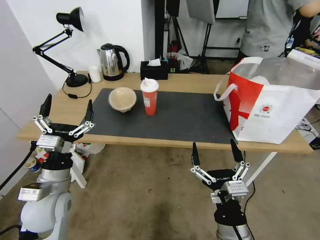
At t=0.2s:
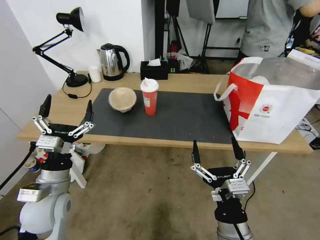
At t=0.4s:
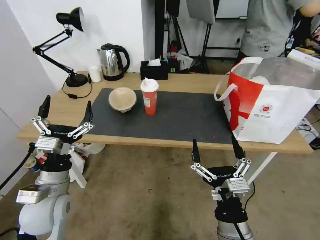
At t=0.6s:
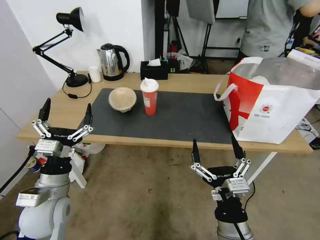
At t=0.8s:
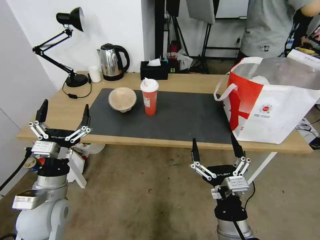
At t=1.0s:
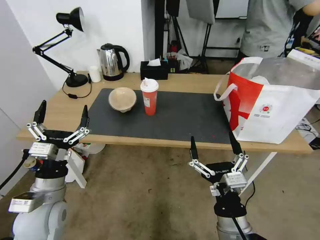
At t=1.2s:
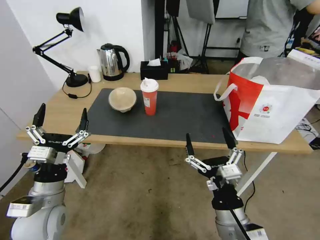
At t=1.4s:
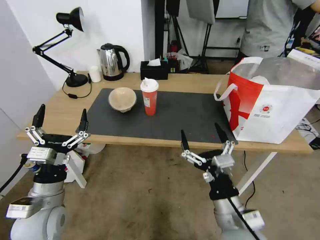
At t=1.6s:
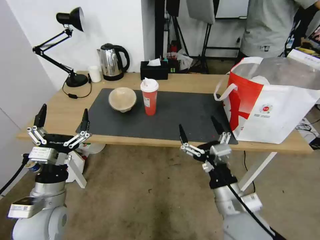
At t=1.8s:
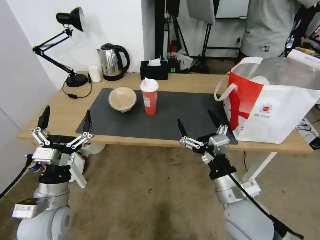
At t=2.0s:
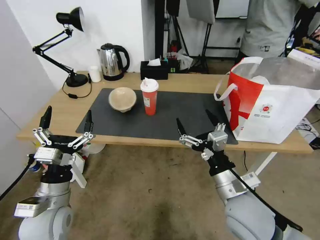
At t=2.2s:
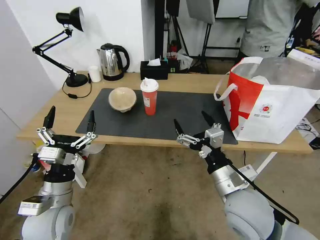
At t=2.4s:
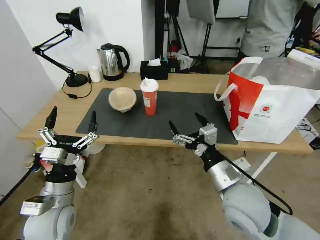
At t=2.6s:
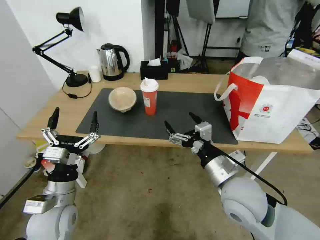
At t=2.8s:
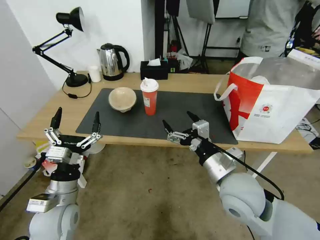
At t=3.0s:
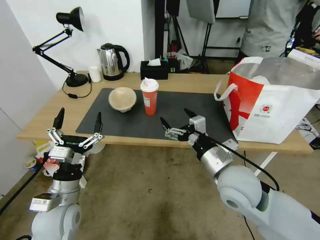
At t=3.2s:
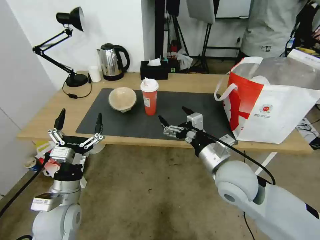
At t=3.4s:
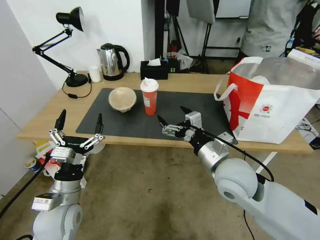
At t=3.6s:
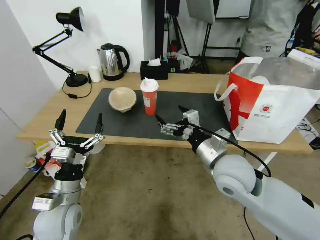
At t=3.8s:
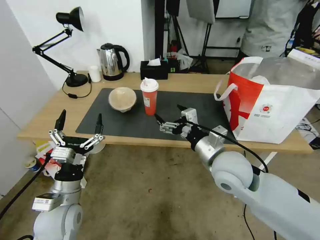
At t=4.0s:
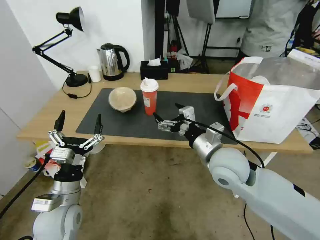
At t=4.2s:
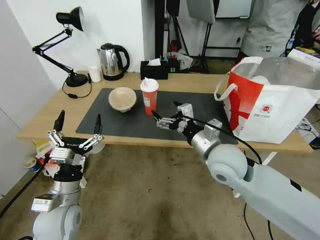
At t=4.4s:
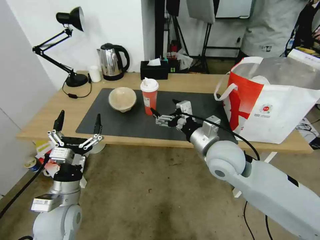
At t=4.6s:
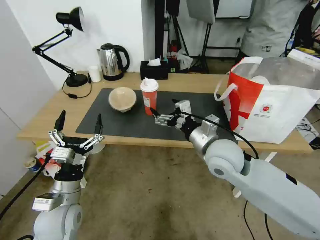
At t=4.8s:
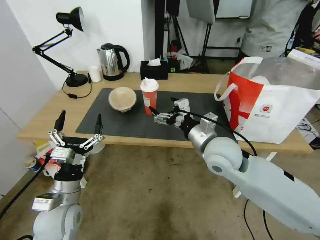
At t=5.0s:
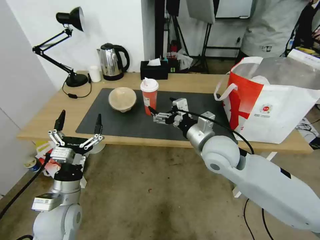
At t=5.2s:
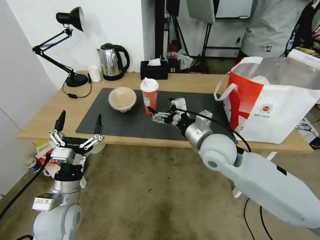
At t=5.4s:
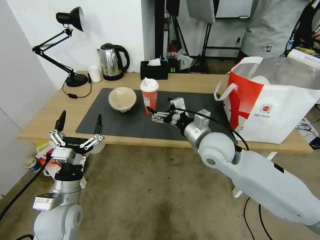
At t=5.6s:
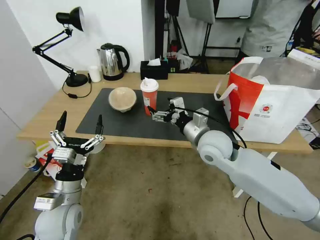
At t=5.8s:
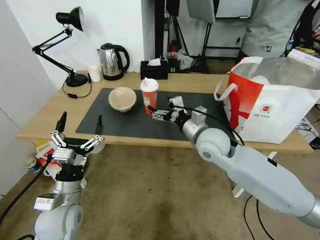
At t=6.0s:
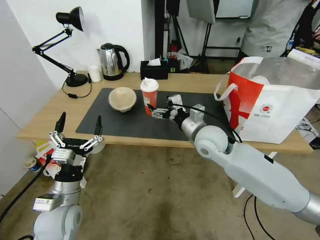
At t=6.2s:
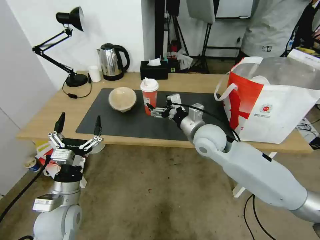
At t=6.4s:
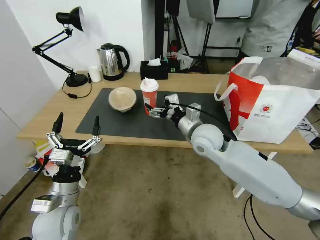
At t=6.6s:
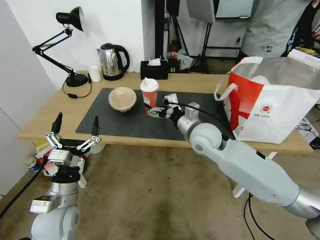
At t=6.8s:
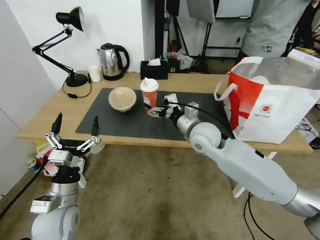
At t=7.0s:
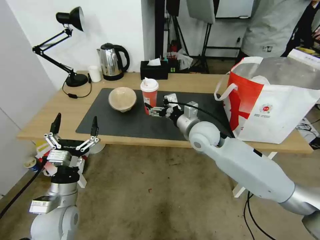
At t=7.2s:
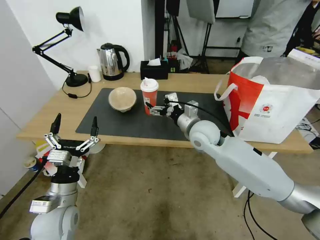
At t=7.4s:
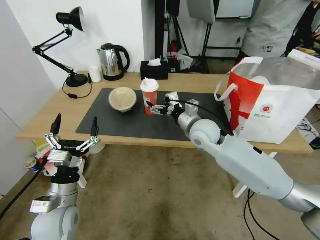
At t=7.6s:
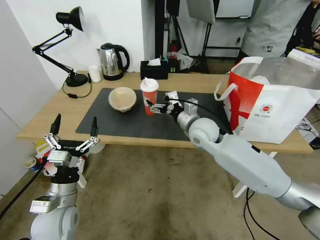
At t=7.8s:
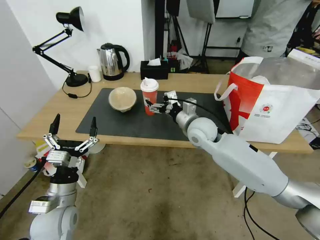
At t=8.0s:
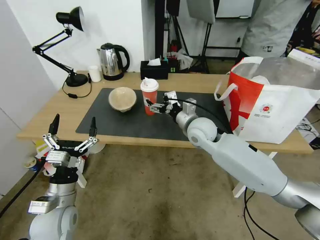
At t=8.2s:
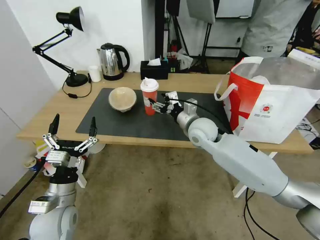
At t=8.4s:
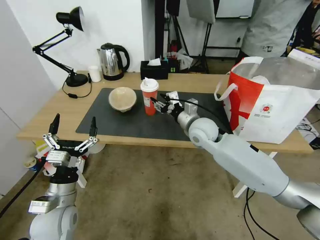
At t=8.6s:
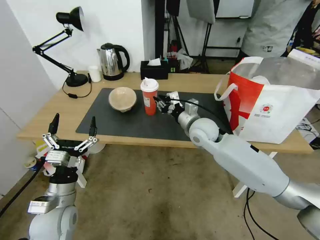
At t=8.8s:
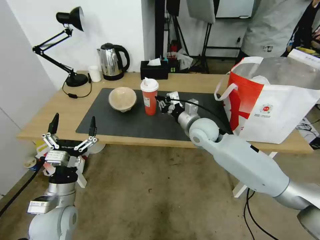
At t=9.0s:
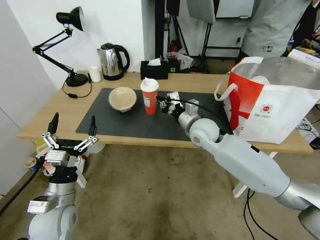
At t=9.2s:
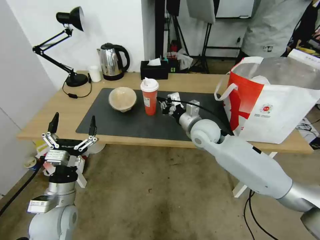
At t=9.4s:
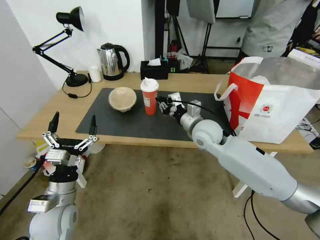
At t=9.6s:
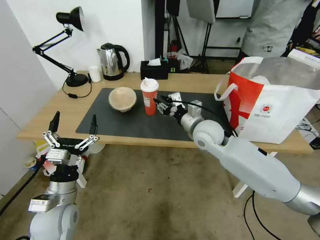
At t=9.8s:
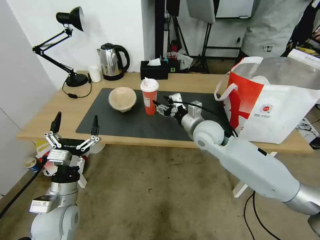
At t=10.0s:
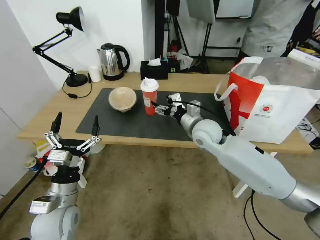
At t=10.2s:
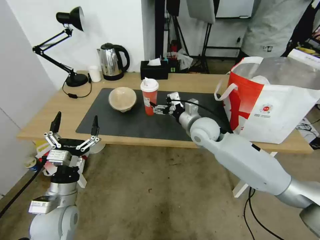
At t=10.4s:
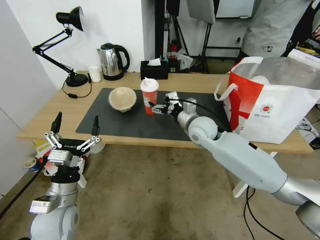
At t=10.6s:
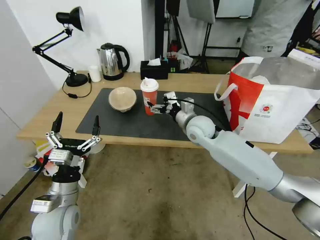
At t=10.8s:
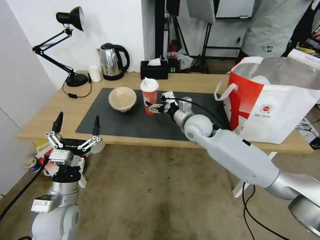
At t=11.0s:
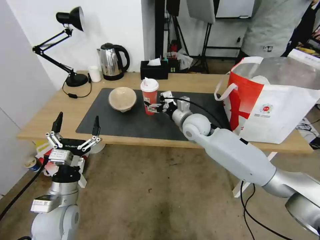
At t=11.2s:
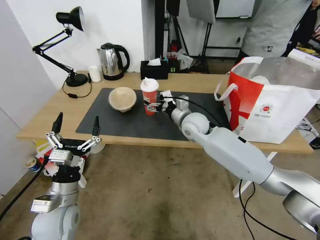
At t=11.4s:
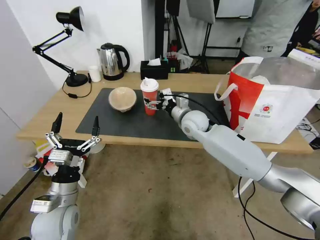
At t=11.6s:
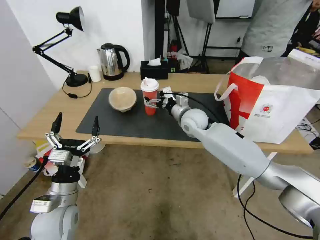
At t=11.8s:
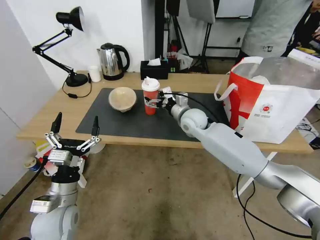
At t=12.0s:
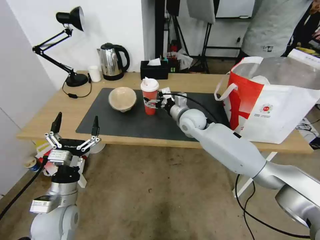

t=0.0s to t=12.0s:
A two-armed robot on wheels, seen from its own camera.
Task of the whole recording: Pick up the trash from the table and place it into the takeout bag.
t=0.0s to t=1.6s: The right gripper moves forward, approximately 5 cm.
t=1.6s to t=3.0s: The right gripper goes approximately 10 cm forward.
t=3.0s to t=4.4s: The right gripper shifts about 5 cm forward.
t=4.4s to t=6.0s: The right gripper goes approximately 5 cm forward.
t=6.0s to t=7.6s: The grippers stay close to where they were, moving slightly.
t=7.6s to t=9.0s: The right gripper closes.
t=9.0s to t=10.4s: The right gripper opens up.
t=10.4s to t=12.0s: The right gripper shifts by roughly 5 cm.

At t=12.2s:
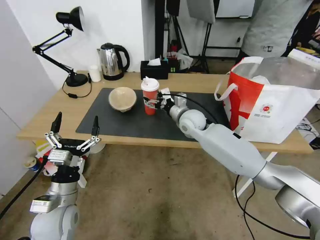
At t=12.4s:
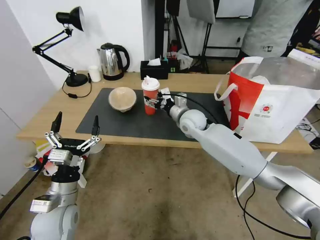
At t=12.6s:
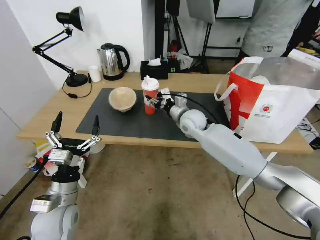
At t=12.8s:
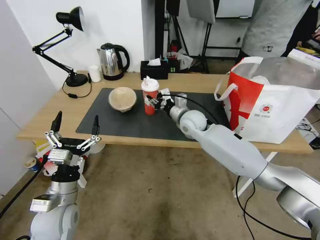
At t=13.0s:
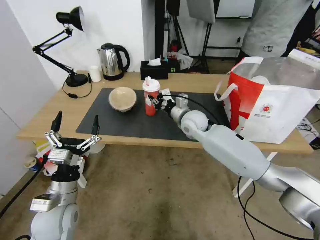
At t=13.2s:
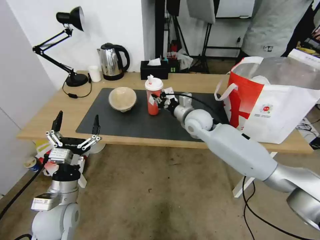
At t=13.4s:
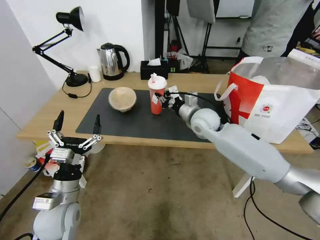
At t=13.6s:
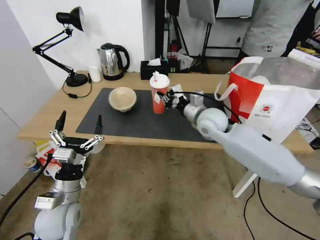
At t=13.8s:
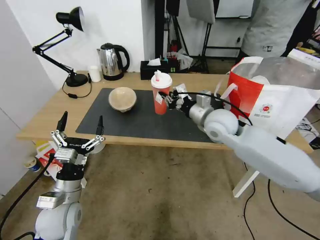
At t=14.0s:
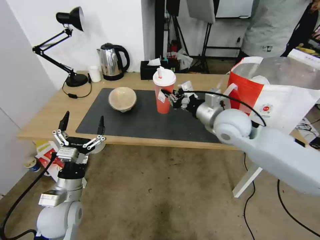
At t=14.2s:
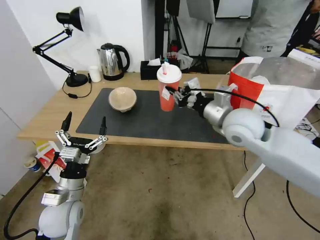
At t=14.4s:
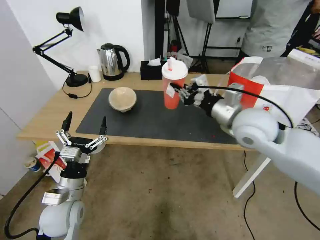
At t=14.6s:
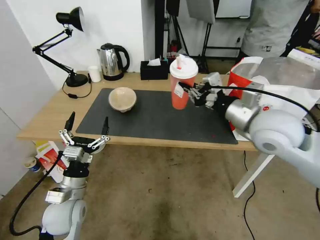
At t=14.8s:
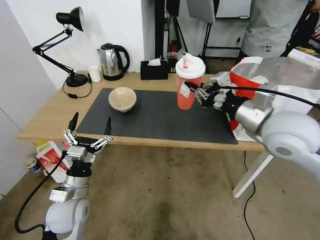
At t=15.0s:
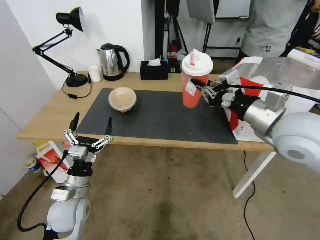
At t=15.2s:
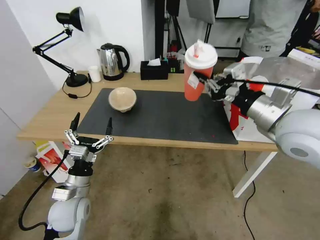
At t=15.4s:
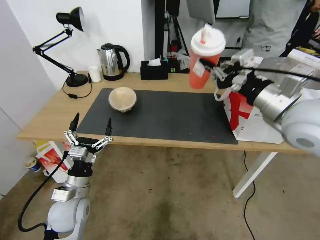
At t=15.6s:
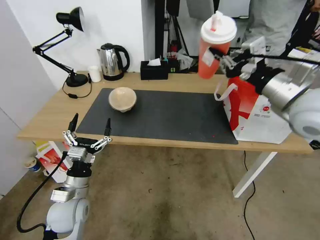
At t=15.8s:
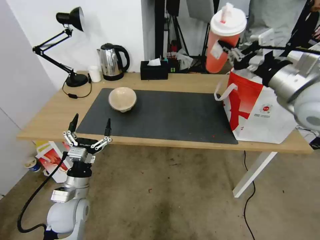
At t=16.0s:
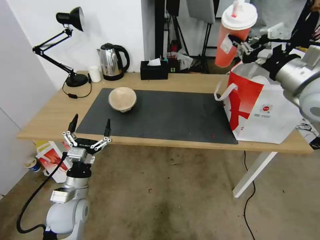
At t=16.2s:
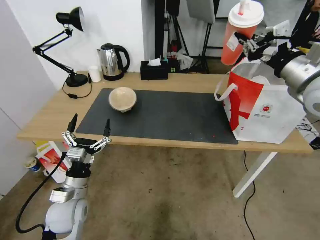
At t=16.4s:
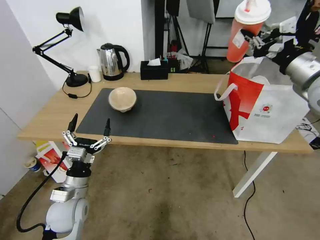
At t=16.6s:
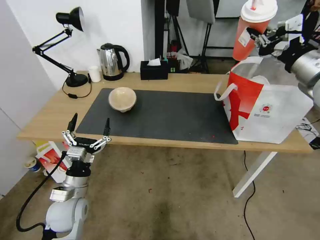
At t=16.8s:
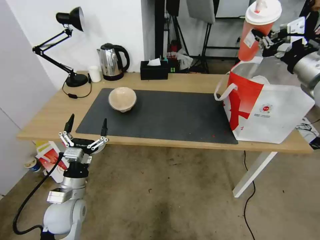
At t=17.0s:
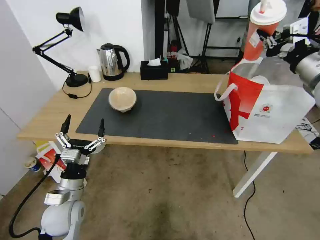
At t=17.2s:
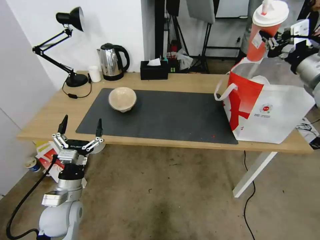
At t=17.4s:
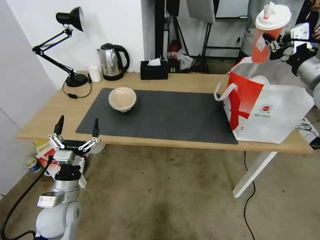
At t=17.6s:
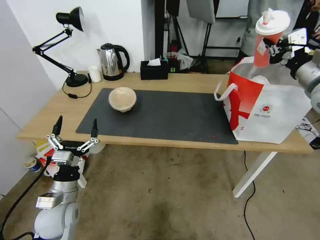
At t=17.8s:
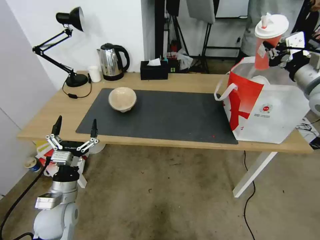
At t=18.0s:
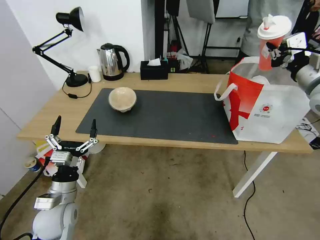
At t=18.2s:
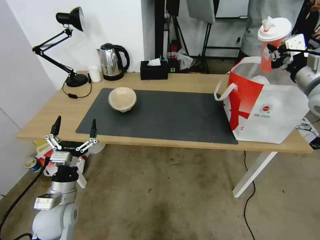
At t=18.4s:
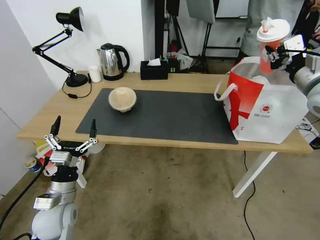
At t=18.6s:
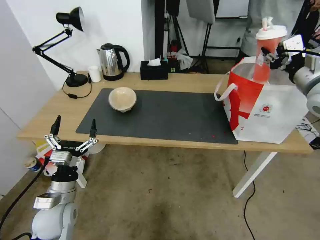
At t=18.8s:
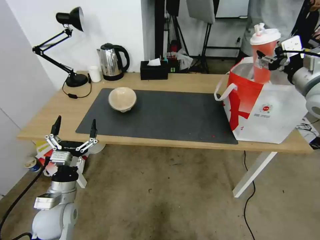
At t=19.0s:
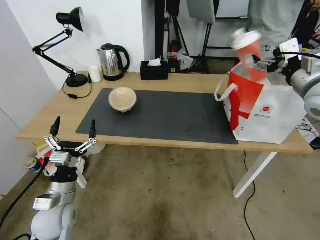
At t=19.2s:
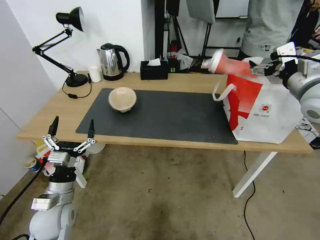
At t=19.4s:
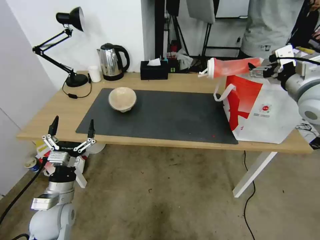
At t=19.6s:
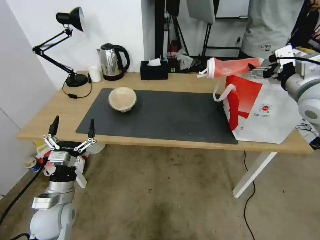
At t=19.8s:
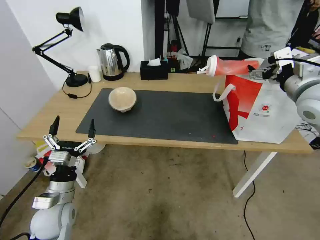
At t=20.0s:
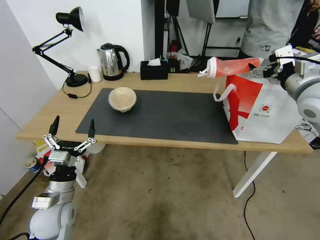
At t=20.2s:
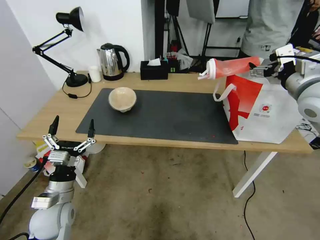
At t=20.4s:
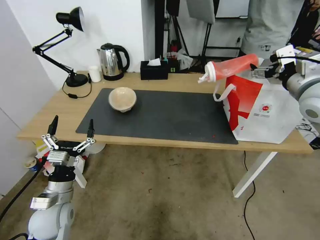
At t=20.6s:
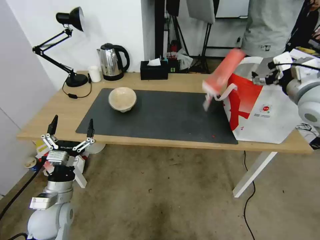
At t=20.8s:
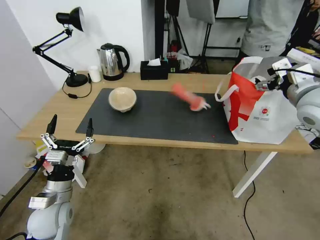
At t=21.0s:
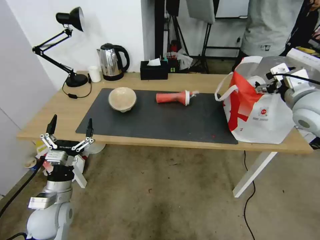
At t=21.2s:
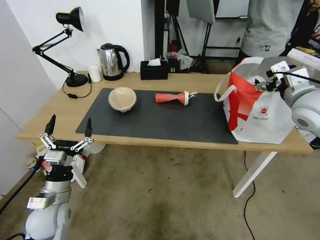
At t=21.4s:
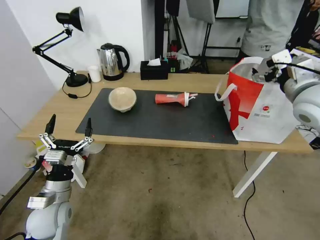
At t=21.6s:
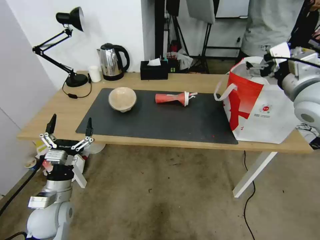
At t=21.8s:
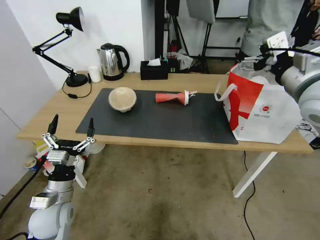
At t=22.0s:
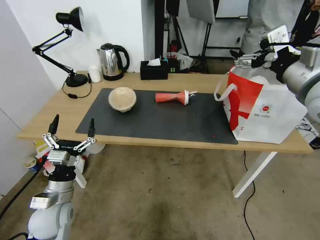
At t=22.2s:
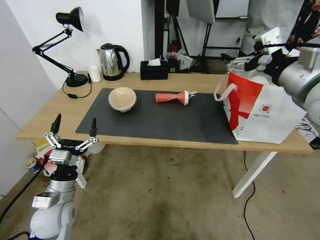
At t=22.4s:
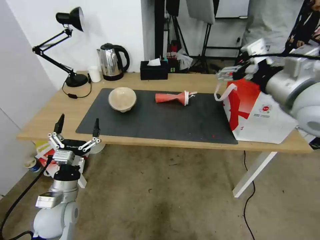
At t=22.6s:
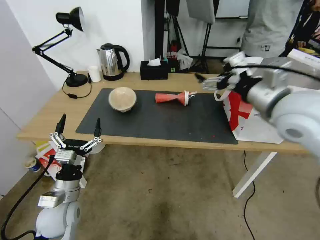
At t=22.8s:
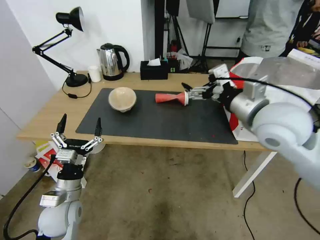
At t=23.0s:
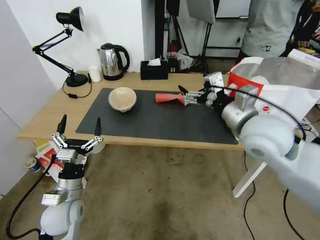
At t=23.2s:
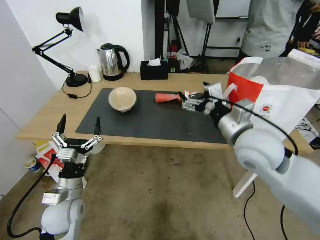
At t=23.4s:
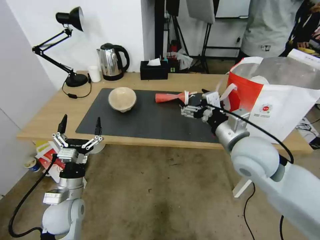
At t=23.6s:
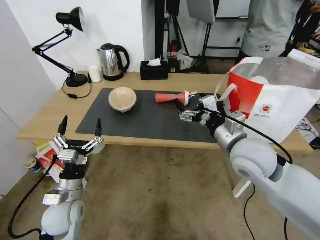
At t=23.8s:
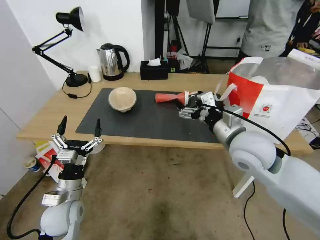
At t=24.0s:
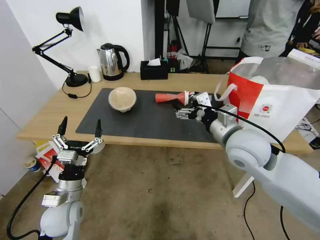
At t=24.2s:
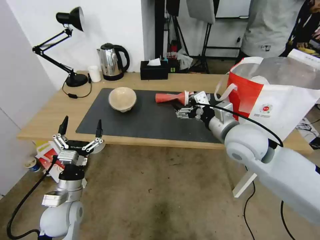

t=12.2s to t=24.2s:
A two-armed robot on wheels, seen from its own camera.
Task of the whole recording: Pick up the trash from the table and place it into the takeout bag.
t=12.2s to t=13.8s: The right gripper shifts roughly 10 cm backward, upward and to the right, and closes up.
t=13.8s to t=15.2s: The right gripper moves backward, upward and to the right, about 20 cm.
t=15.2s to t=16.6s: The right gripper heads to the right, forward and upward, covering approximately 15 cm.
t=18.2s to t=19.8s: The right gripper opens its fingers.
t=19.8s to t=21.2s: The grippers make only small movements.
t=21.2s to t=22.6s: The right gripper goes some 10 cm to the left and backward.
t=22.6s to t=24.2s: The right gripper goes some 15 cm downward and to the left.
